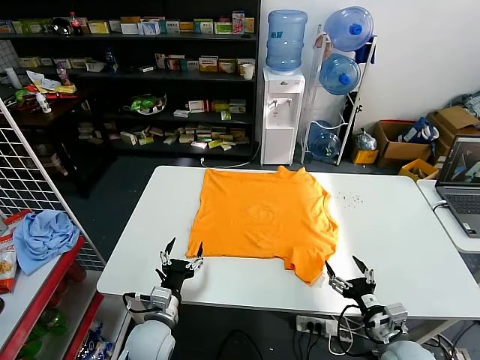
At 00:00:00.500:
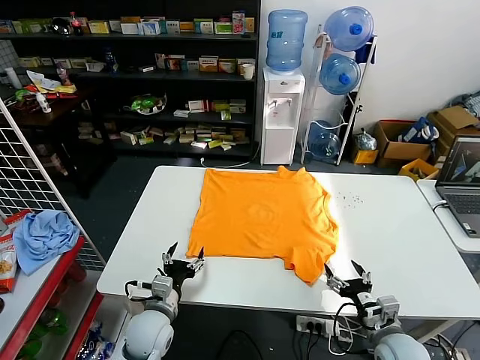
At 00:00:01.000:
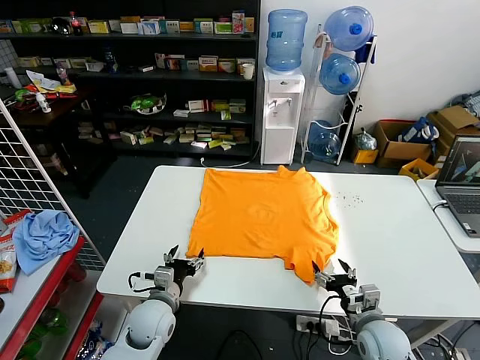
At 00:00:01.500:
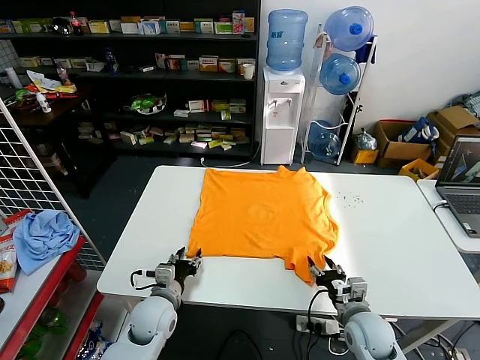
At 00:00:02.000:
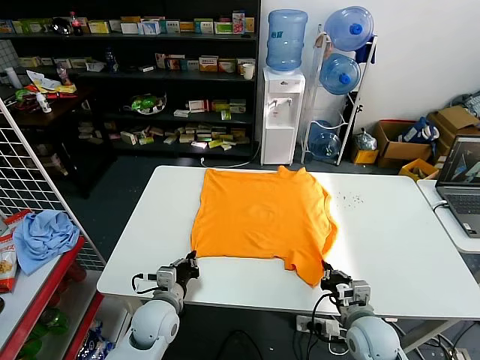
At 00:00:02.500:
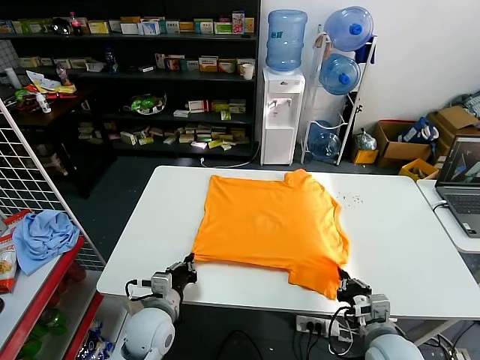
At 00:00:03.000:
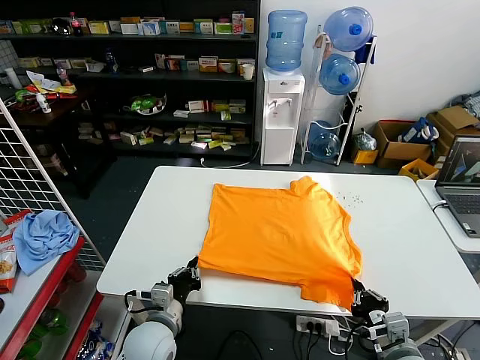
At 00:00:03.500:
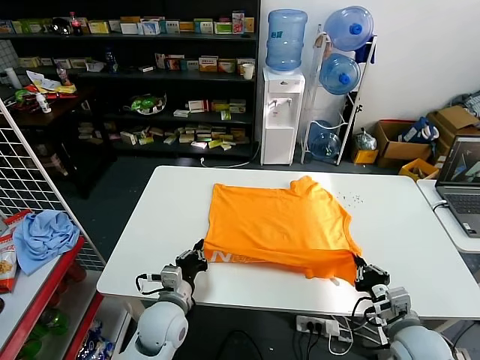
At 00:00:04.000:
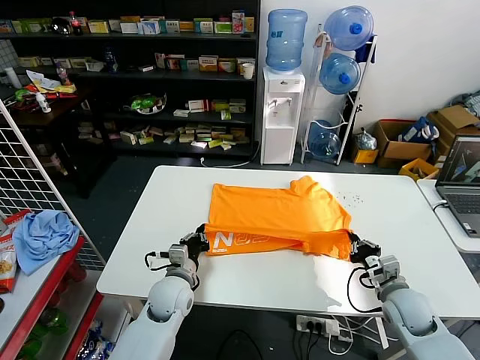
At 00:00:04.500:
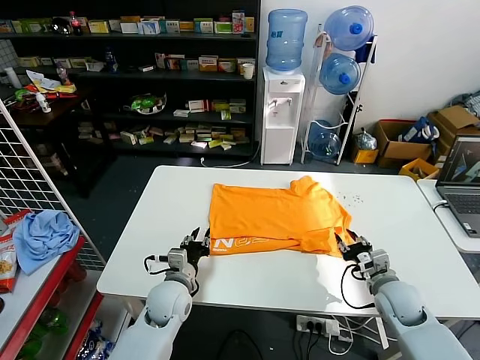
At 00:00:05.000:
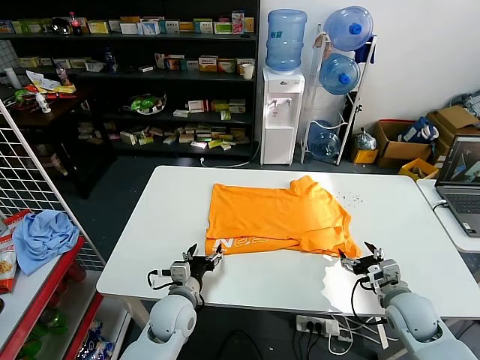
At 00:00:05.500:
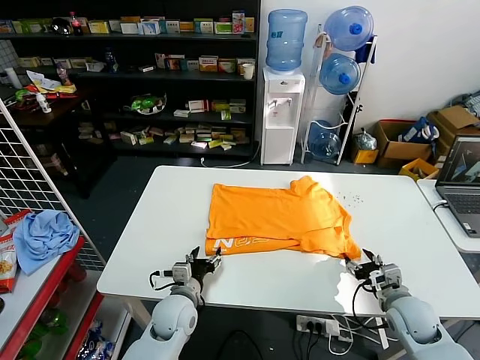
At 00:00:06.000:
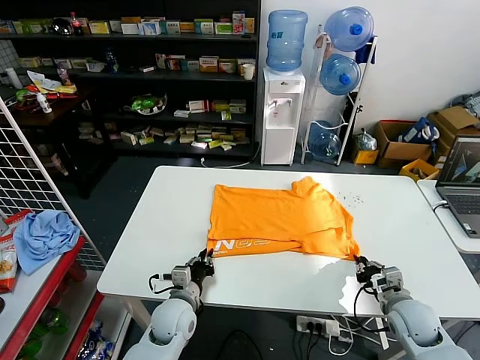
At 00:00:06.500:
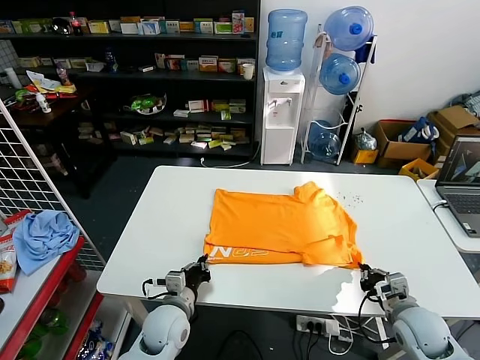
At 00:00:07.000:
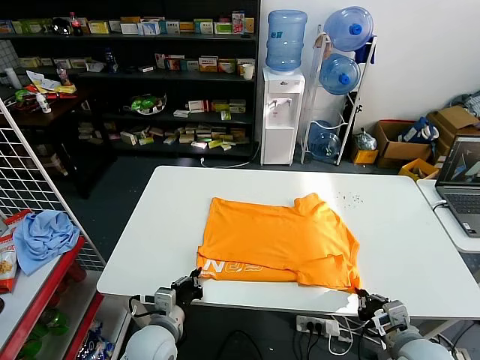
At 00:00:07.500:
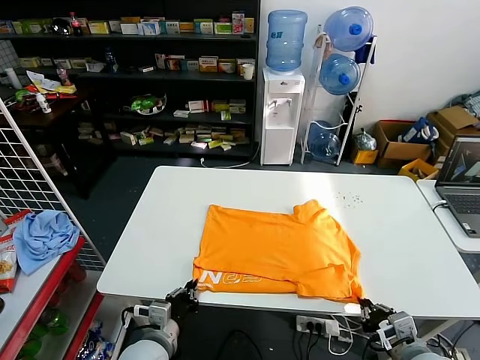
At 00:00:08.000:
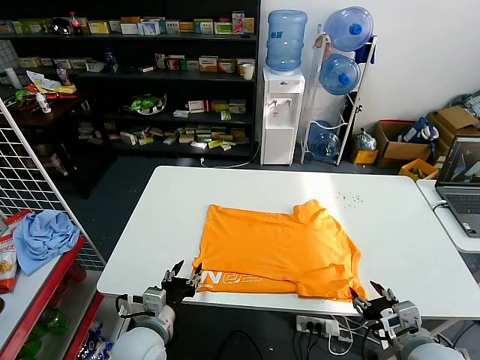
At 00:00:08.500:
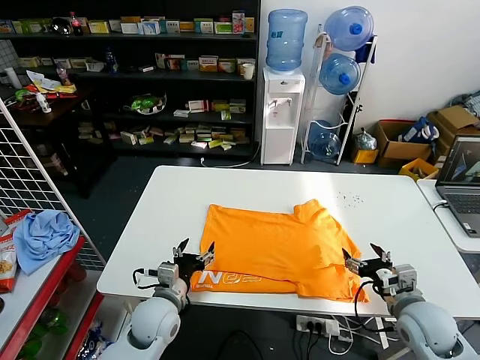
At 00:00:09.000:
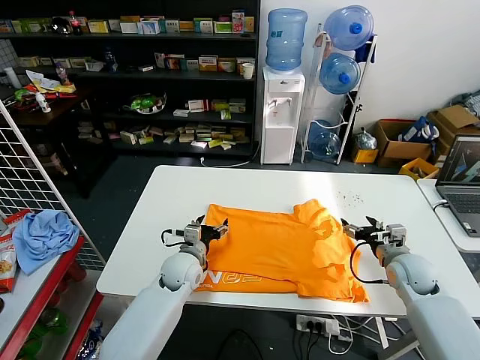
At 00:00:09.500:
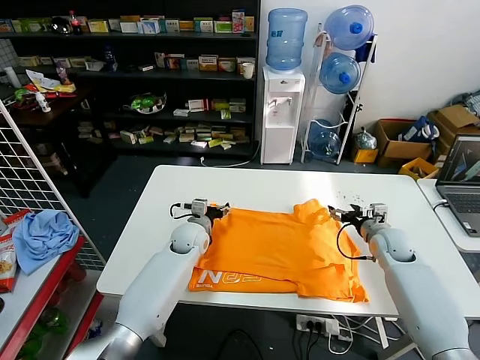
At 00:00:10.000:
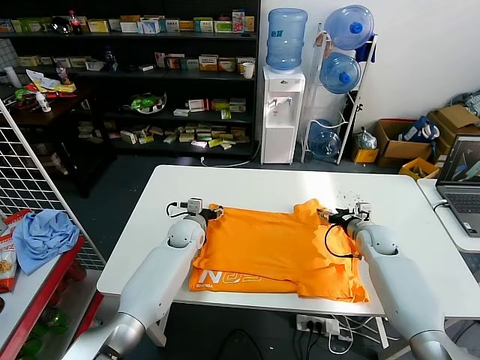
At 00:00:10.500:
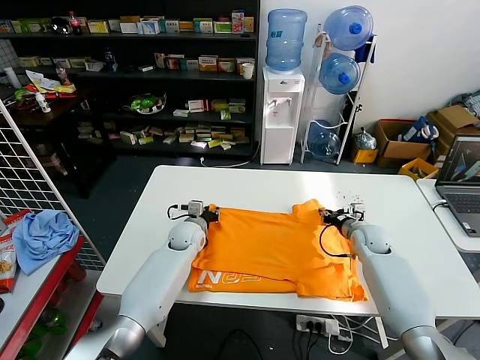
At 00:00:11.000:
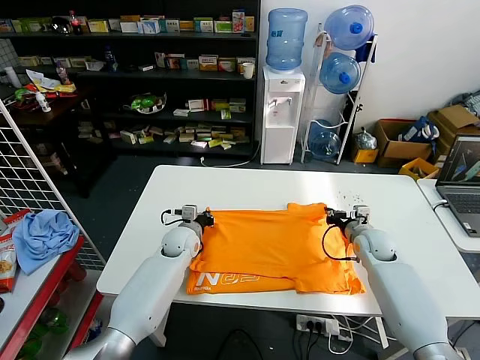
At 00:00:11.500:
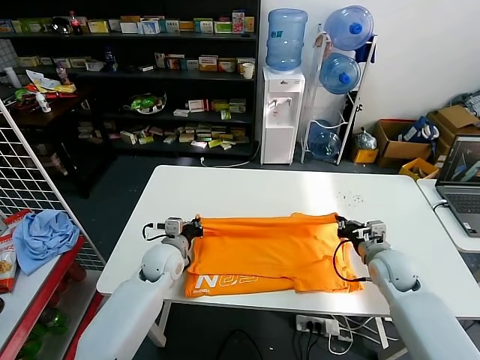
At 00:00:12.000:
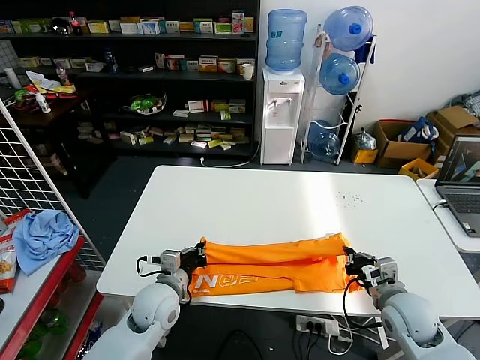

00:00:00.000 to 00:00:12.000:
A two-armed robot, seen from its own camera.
Task of the whole recording: fold and organize the clothes.
Step, 00:00:00.000 to 00:00:02.000: use both grippers simultaneously to clamp the lower edge of the clothing fabric.
Step, 00:00:02.500 to 00:00:04.500: use both grippers to drag the lower edge of the fabric forward and fold it over the upper edge.
Step, 00:00:05.000 to 00:00:08.000: Drag the clothes downward with both gripper.
Step, 00:00:08.500 to 00:00:11.000: use both grippers simultaneously to clamp the upper edge of the clothing fabric.
00:00:02.000 to 00:00:04.000: The right gripper shifts roughly 10 cm to the right and forward; the left gripper shifts by about 5 cm.
00:00:04.000 to 00:00:06.000: The left gripper changes place by roughly 5 cm, and opens and closes again, while the right gripper opens, then closes again.
00:00:06.000 to 00:00:08.000: Both grippers move backward and upward, about 10 cm. The right gripper opens its fingers. Meanwhile the left gripper opens its fingers.
00:00:08.000 to 00:00:10.000: Both grippers move forward, roughly 30 cm.
00:00:10.000 to 00:00:12.000: The two grippers go roughly 20 cm backward. The left gripper closes. Meanwhile the right gripper closes.

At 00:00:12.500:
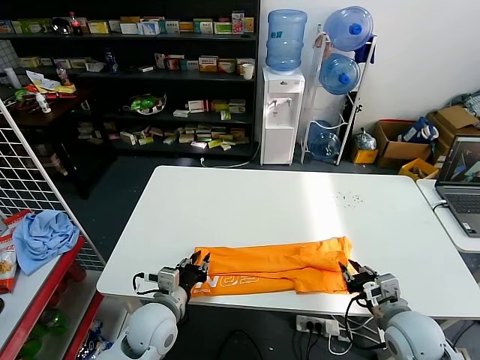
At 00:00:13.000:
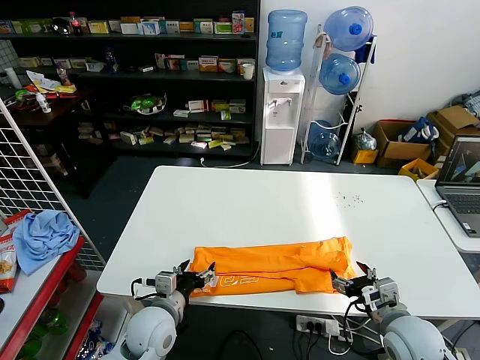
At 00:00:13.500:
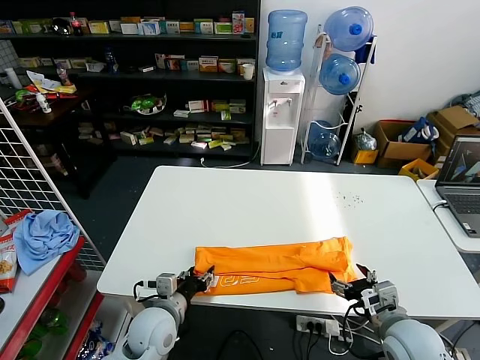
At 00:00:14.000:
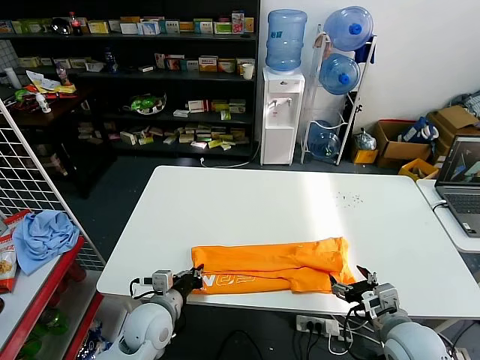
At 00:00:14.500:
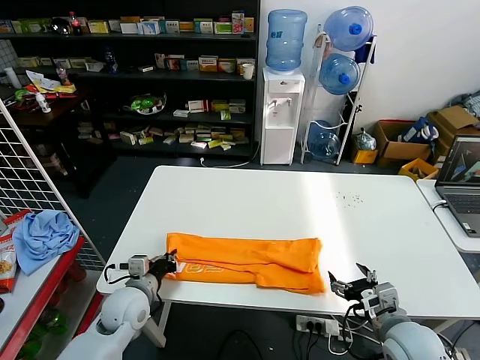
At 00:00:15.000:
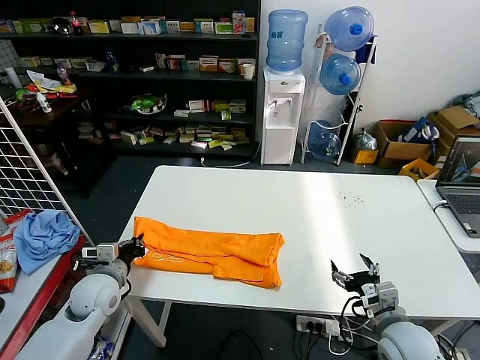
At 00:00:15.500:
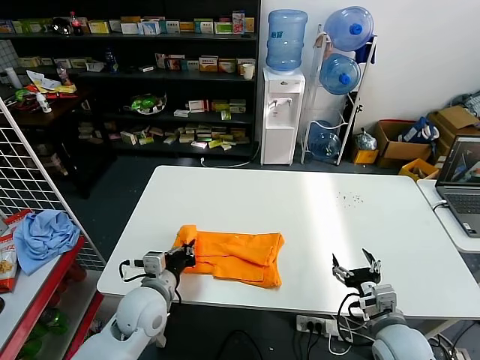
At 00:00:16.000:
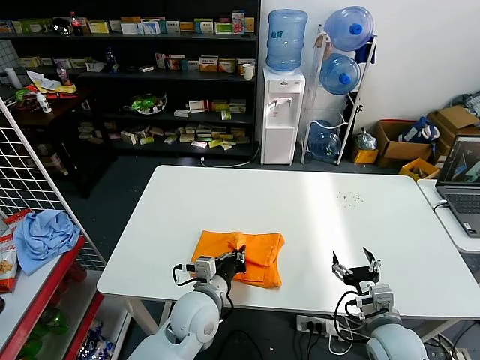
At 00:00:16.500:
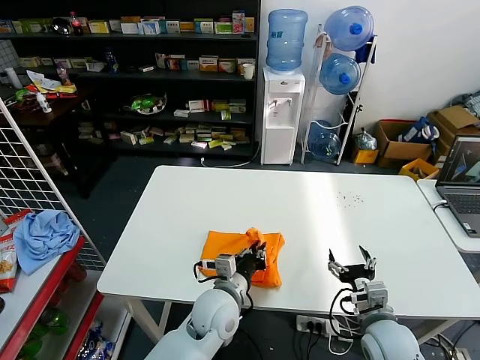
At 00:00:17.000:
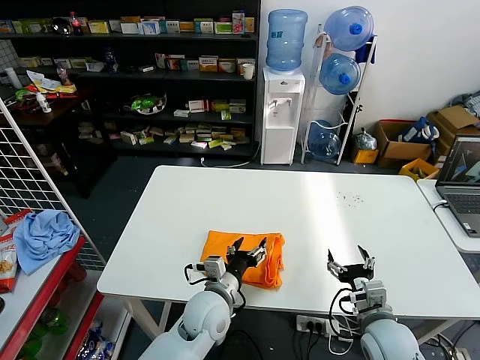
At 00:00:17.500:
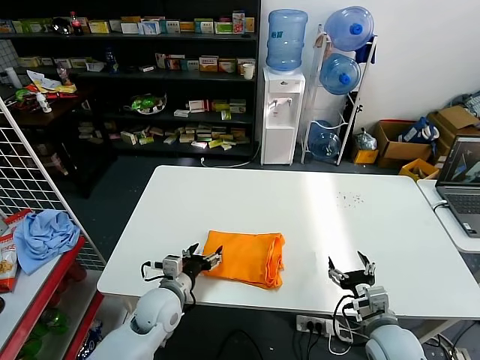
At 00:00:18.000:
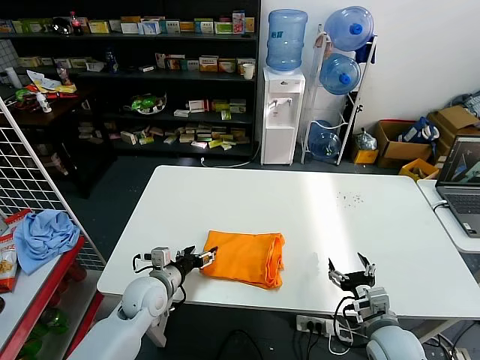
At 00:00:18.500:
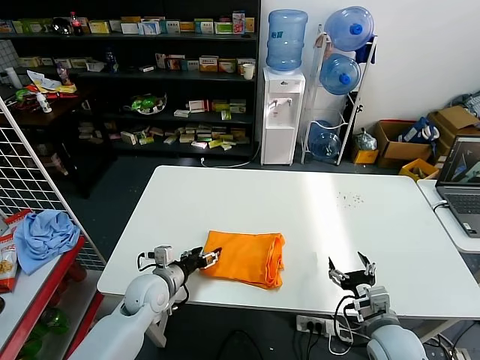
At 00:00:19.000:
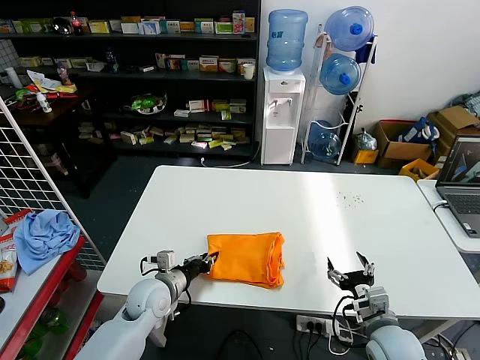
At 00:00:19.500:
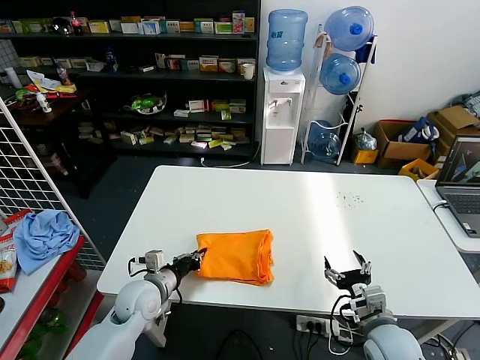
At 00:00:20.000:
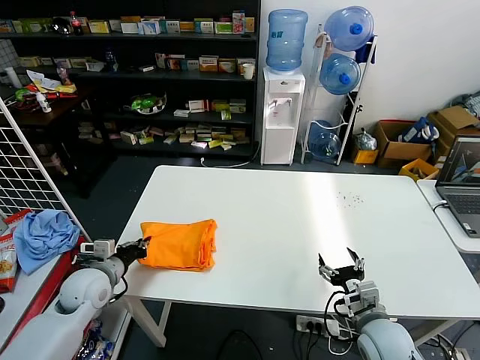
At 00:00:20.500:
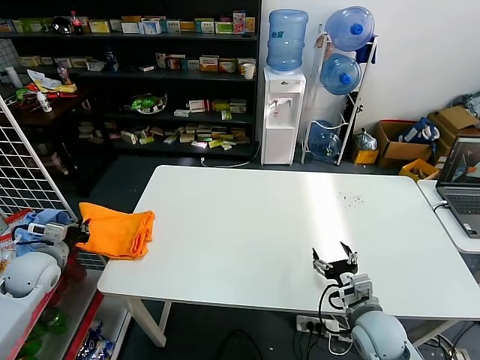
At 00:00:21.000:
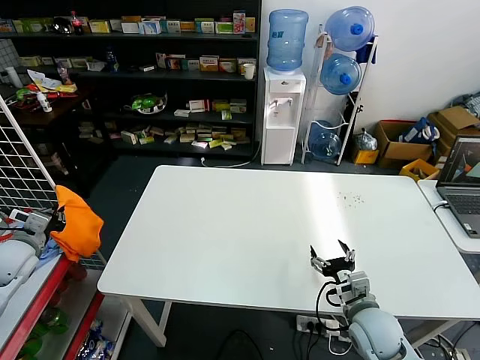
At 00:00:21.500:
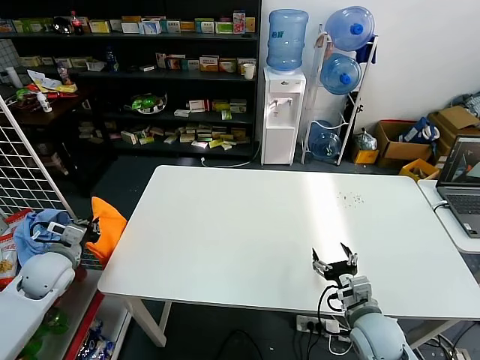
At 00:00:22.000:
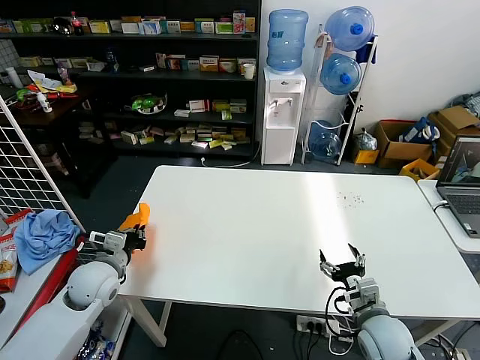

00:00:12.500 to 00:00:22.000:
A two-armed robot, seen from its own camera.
Task of the whole recording: fold and organize the clothes.
Step, 00:00:13.500 to 00:00:14.000: use the left gripper to clamp the left edge of the fabric.
Step, 00:00:14.500 to 00:00:16.500: use the left gripper to drag the left edge of the fabric to the left and folds it over the right edge.
00:00:12.500 to 00:00:14.500: The left gripper goes some 5 cm to the left, and opens, then closes once more, while the right gripper opens.
00:00:14.500 to 00:00:16.500: The left gripper goes roughly 20 cm to the right.
00:00:16.500 to 00:00:18.000: The left gripper is displaced to the left by approximately 15 cm, and opens.
00:00:18.000 to 00:00:20.000: The left gripper is displaced to the left by roughly 10 cm, and closes up.
00:00:20.000 to 00:00:22.000: The left gripper moves some 15 cm to the left and comes back.

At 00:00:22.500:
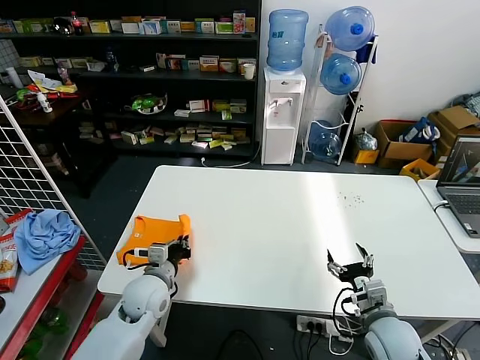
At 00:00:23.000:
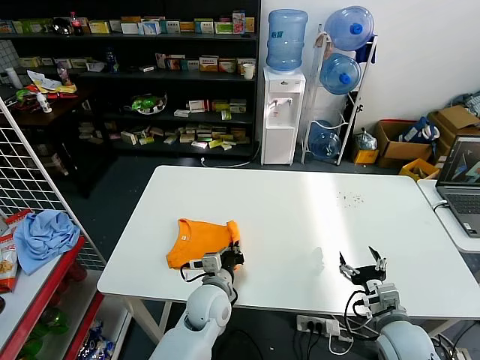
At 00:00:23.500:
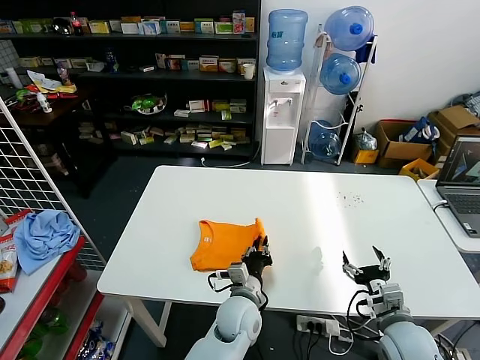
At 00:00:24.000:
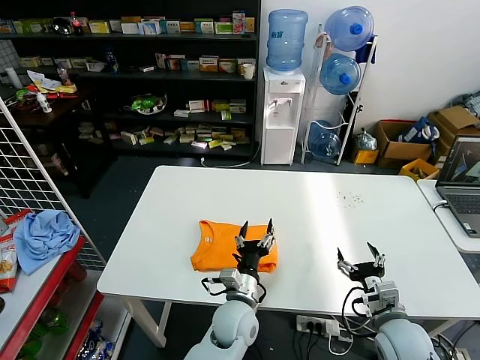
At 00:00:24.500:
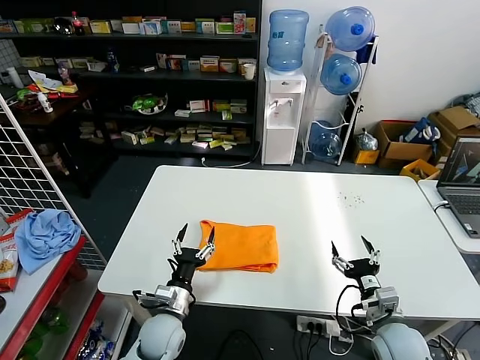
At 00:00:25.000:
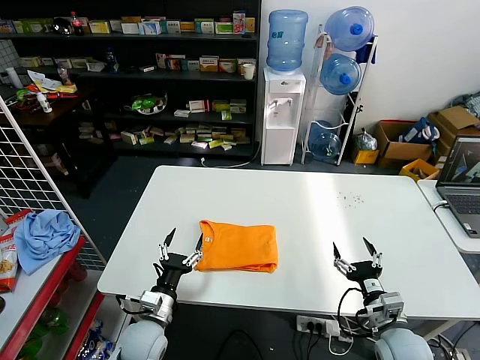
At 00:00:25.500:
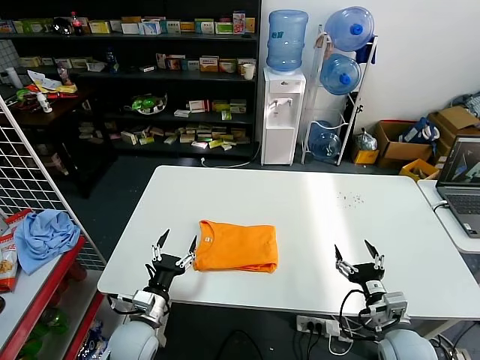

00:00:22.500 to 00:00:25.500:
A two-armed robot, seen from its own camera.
Task of the whole recording: fold and organize the clothes.
00:00:22.500 to 00:00:24.000: The left gripper is displaced to the right by about 20 cm, and opens.
00:00:24.000 to 00:00:25.500: The left gripper travels to the left by approximately 25 cm.
